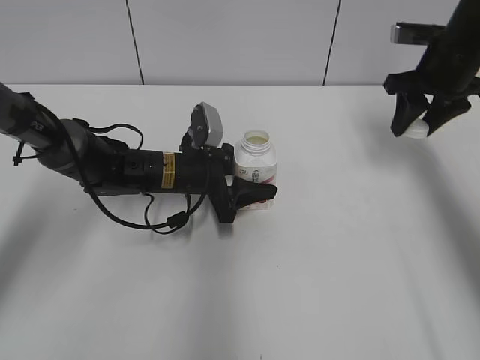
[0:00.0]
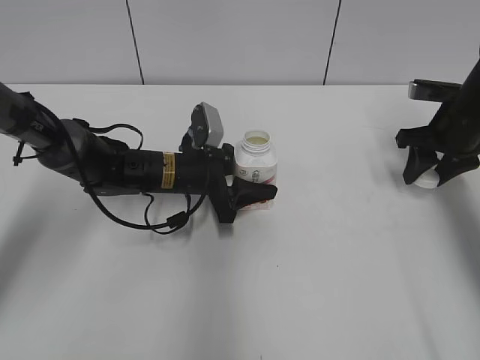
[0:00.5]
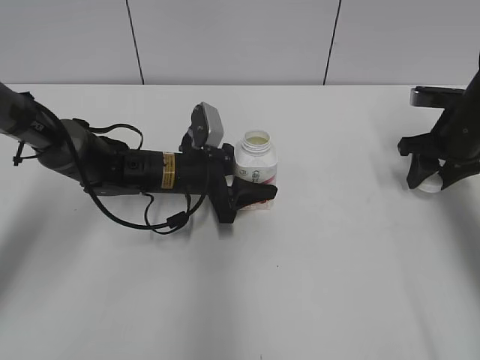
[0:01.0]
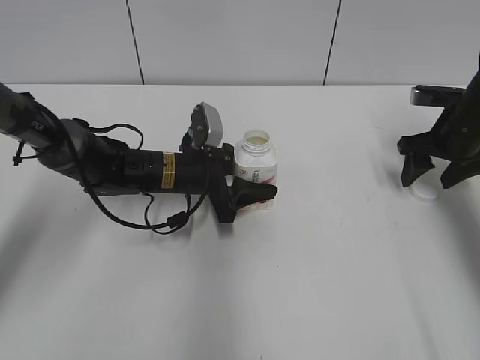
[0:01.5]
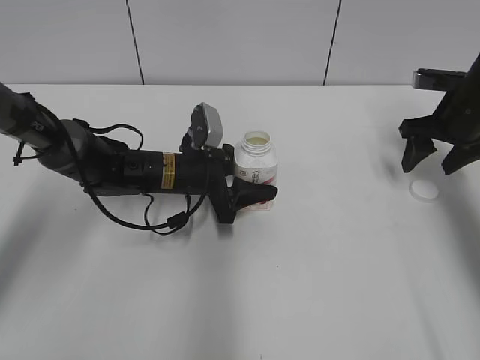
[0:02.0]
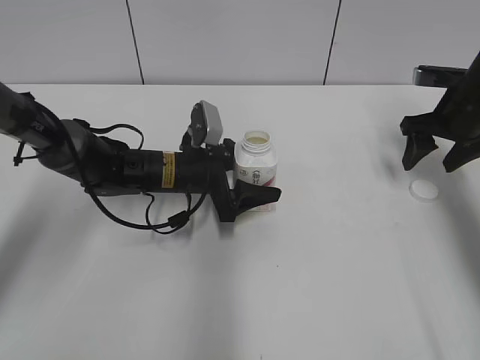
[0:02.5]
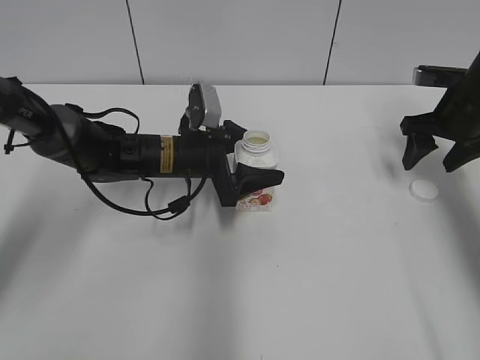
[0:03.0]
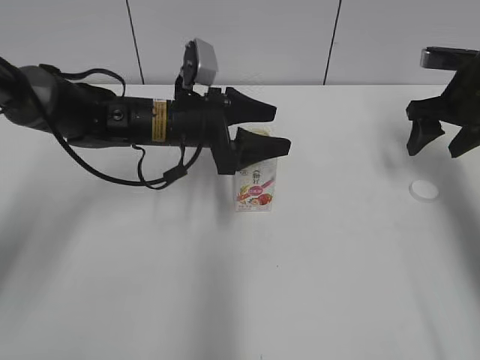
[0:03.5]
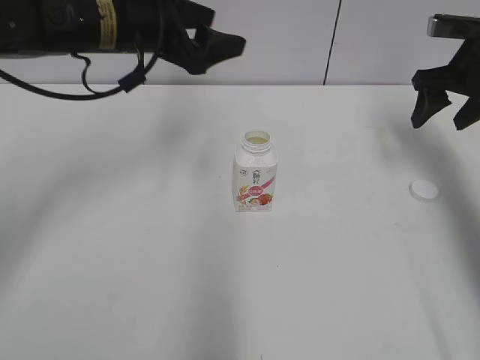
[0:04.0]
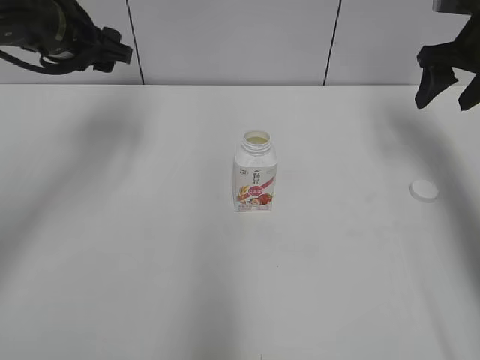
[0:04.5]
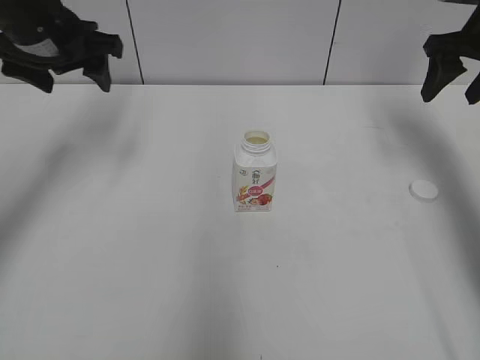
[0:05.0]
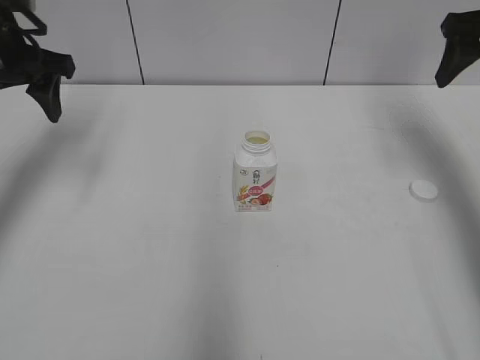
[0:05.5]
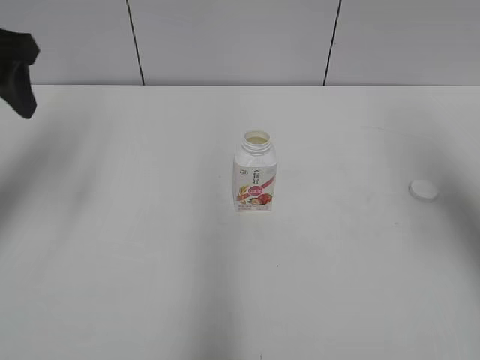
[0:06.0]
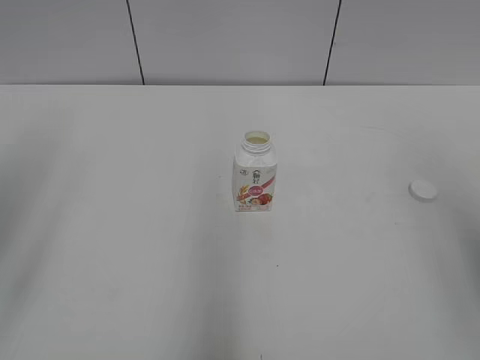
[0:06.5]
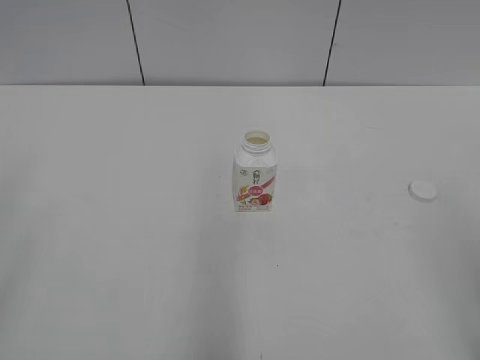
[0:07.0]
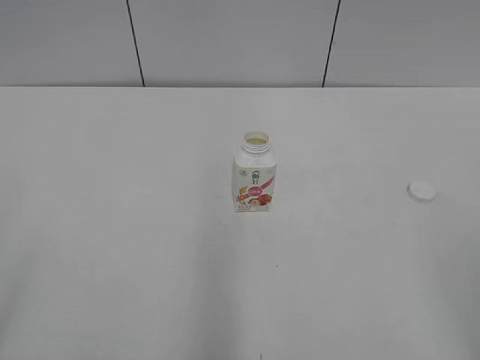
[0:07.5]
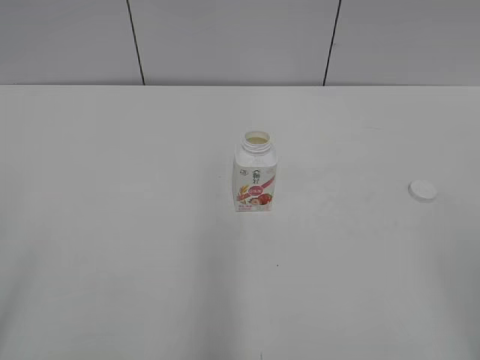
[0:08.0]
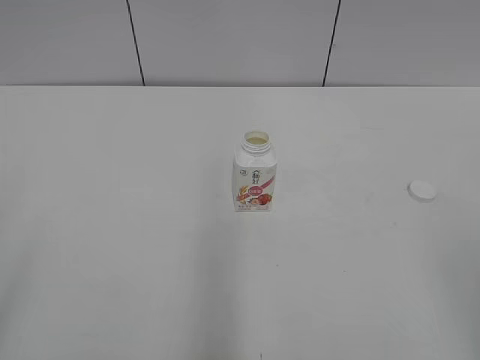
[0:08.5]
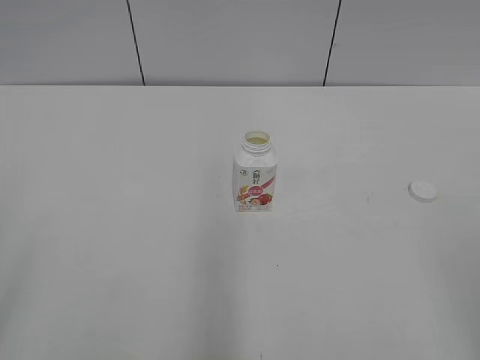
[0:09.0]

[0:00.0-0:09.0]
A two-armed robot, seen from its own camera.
0:00.0 to 0:02.0: The right gripper heads downward, covering about 5 cm, and opens up.
0:02.0 to 0:04.5: The left gripper moves upward and to the left, approximately 25 cm. Meanwhile the right gripper heads upward, covering approximately 10 cm.
0:04.5 to 0:07.0: The two grippers go some 40 cm backward.
